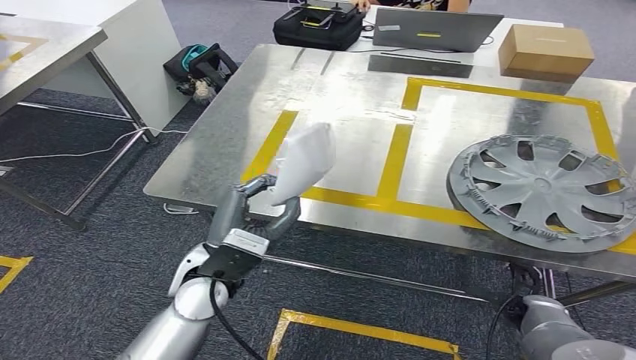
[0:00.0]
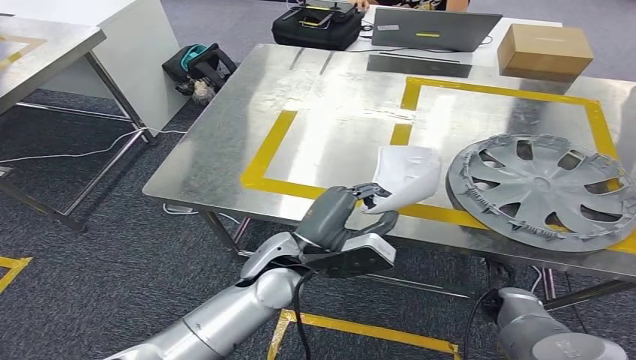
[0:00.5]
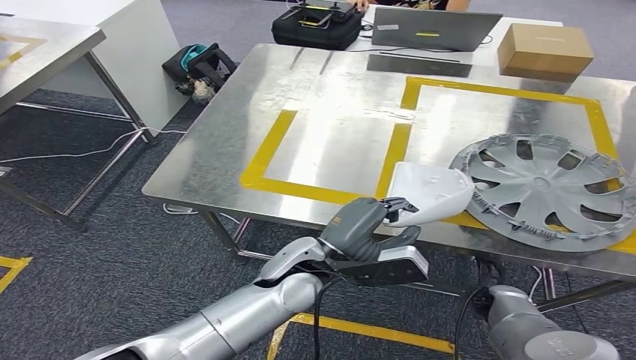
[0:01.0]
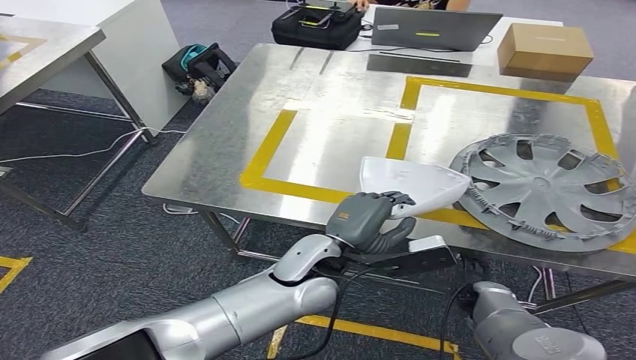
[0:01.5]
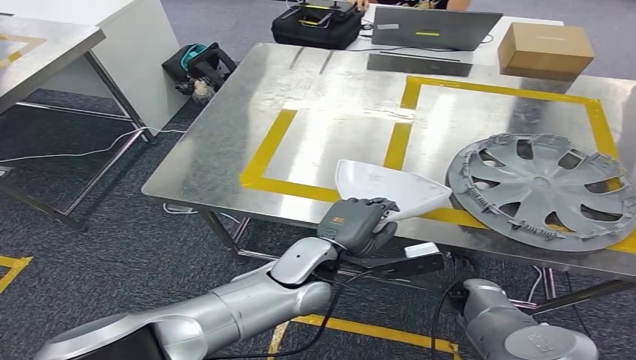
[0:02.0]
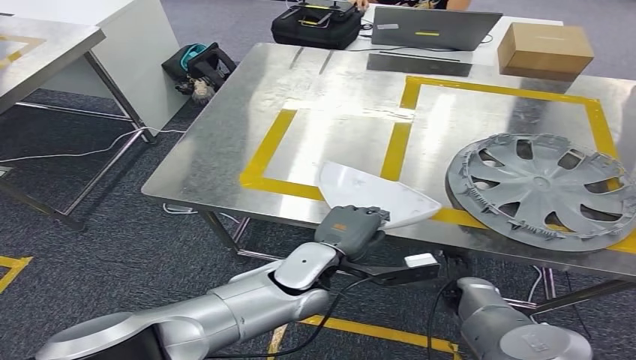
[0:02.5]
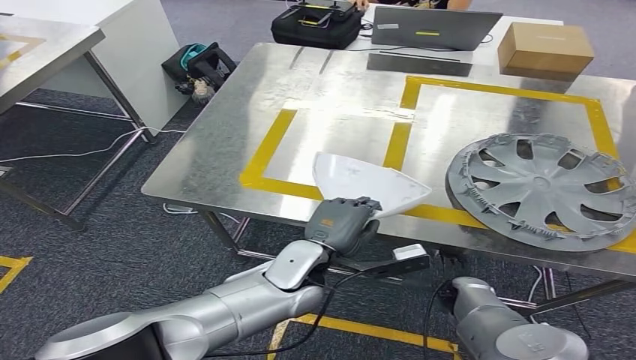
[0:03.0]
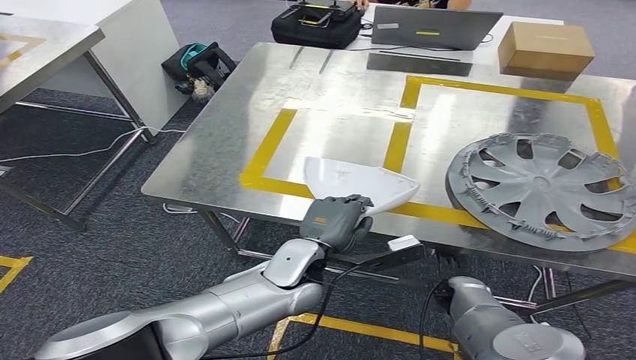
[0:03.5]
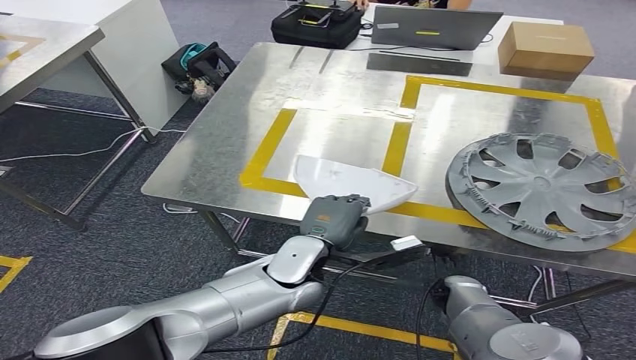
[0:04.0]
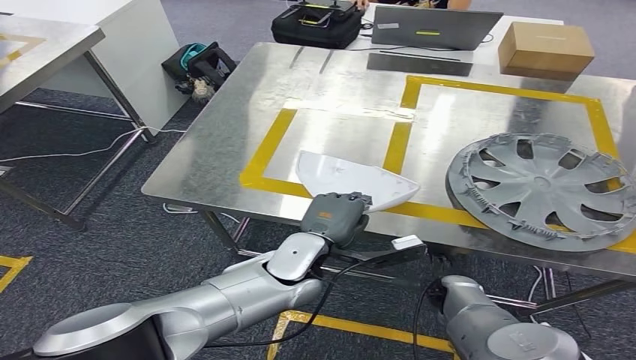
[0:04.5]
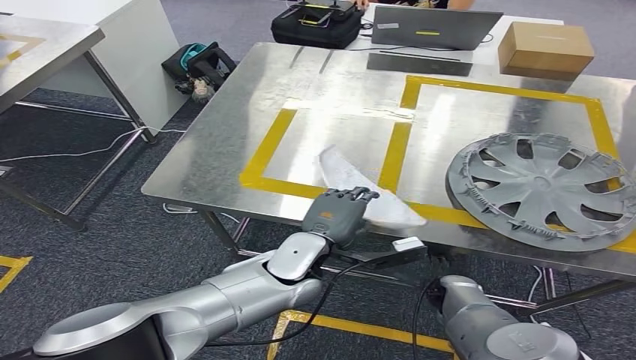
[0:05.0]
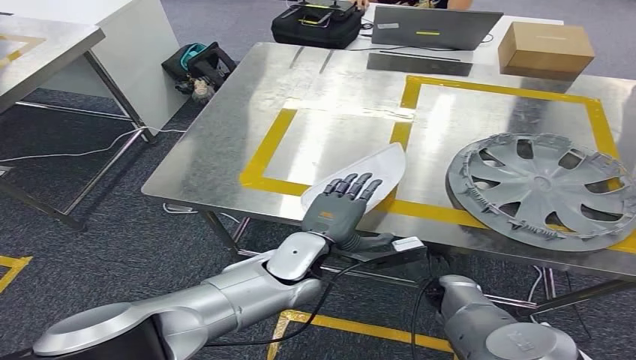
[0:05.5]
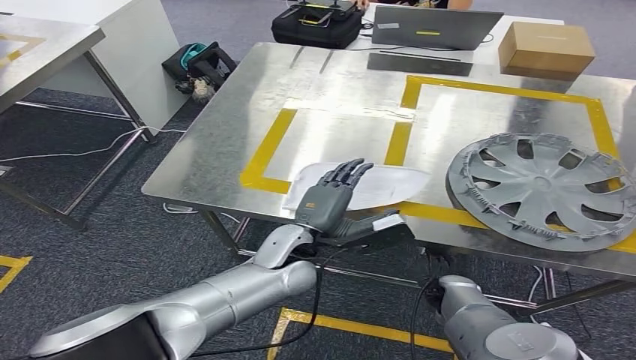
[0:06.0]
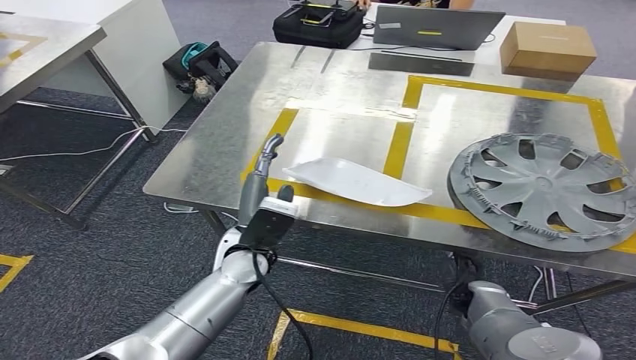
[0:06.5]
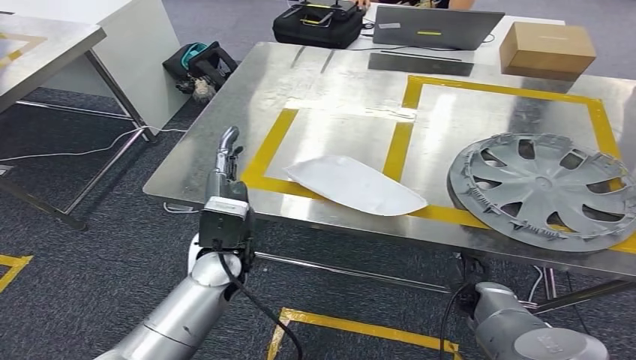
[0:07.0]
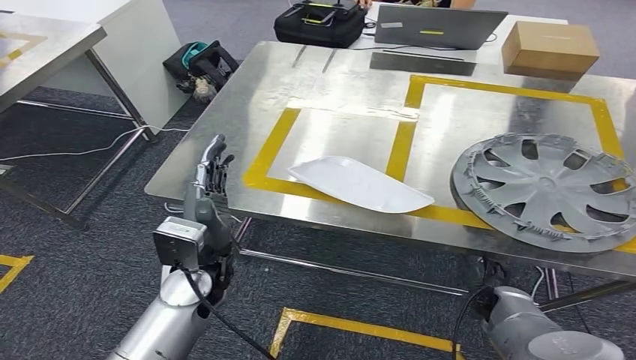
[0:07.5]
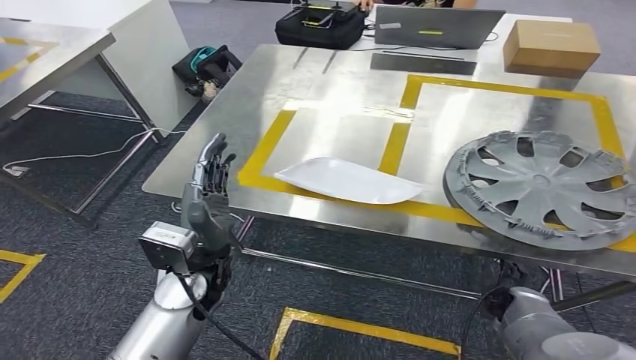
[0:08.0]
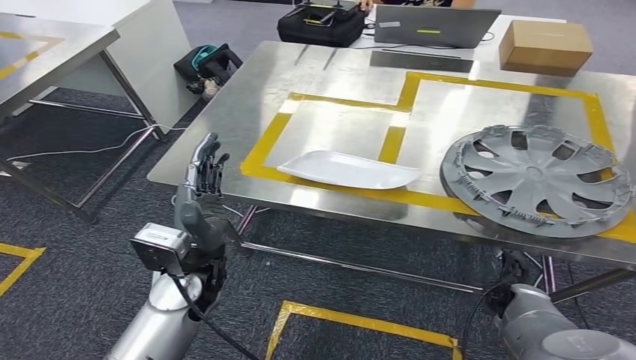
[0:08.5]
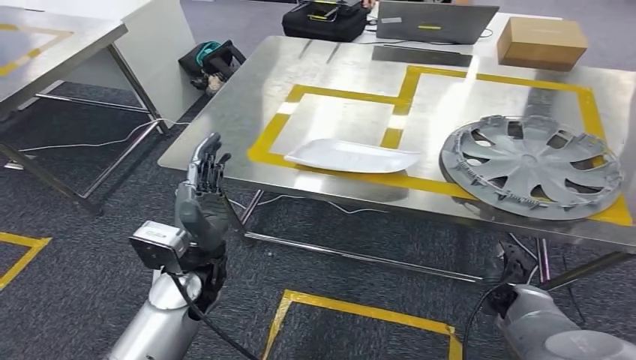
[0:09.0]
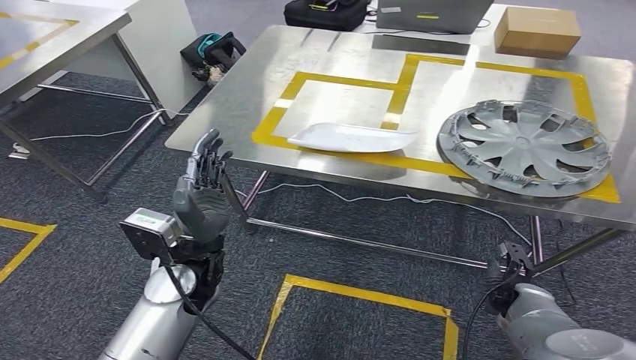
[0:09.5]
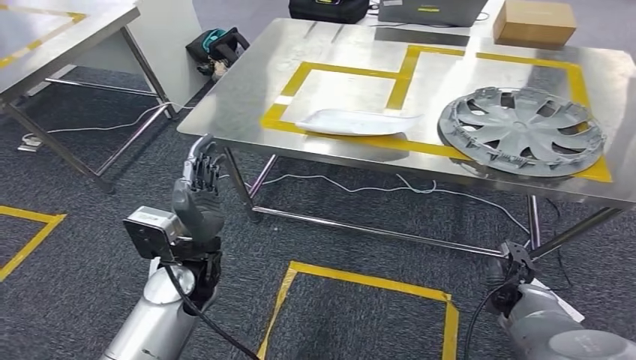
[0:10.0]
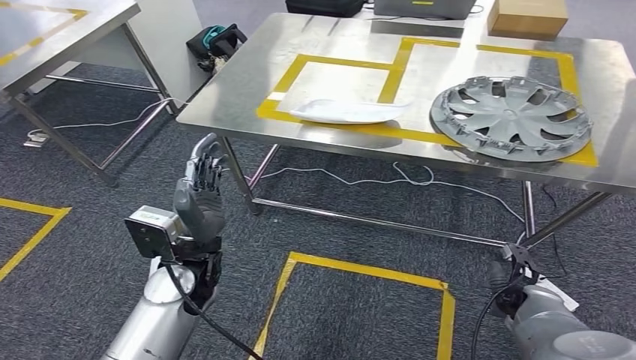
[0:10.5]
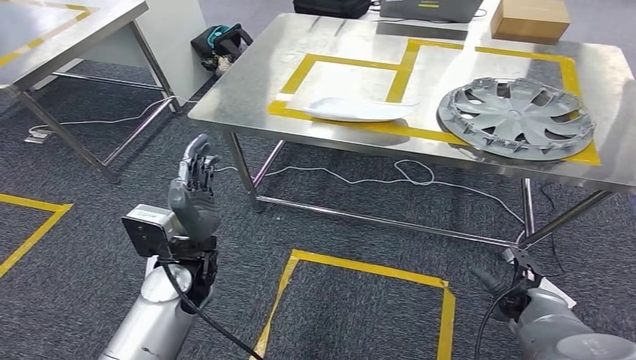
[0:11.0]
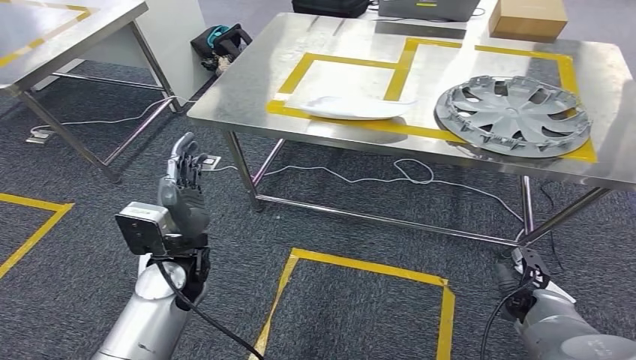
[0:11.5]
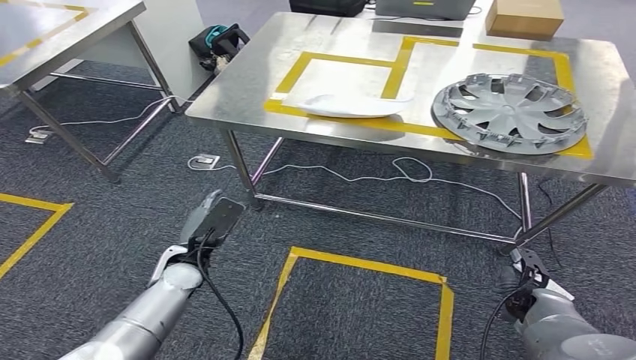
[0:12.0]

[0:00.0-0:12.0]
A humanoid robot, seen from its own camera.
Step, 0:00.0 to 0:09.0: Insert the small component into the corresponding slot on the workbench.
0:02.0 to 0:04.0: The hands move only a little.

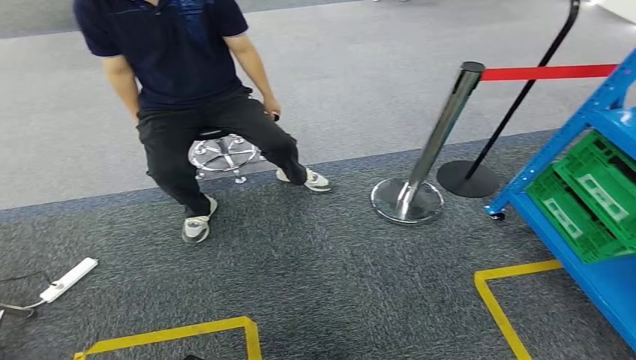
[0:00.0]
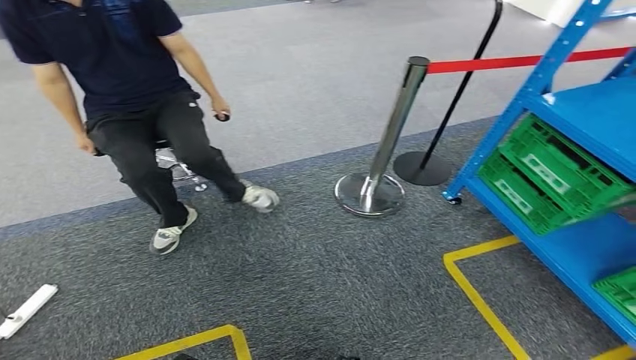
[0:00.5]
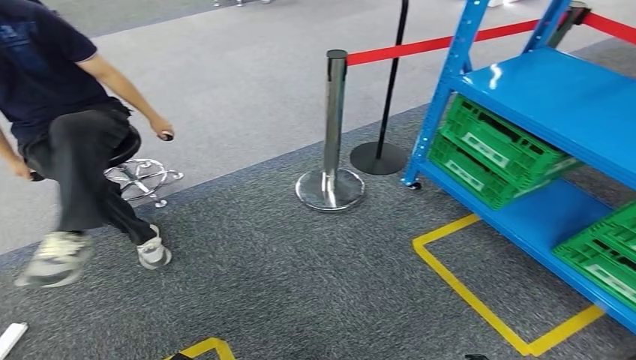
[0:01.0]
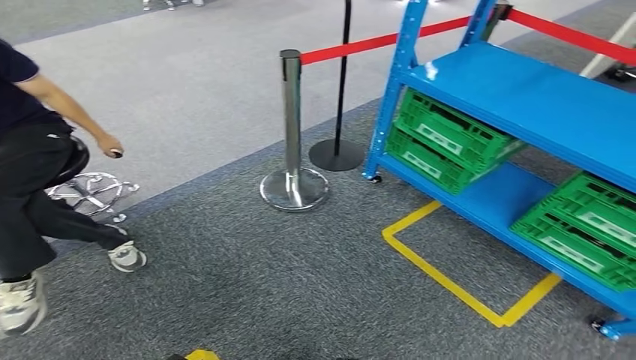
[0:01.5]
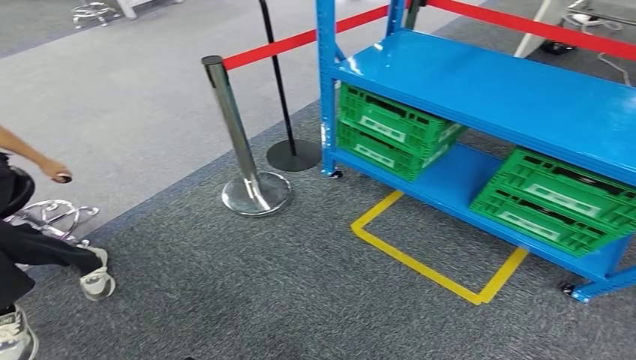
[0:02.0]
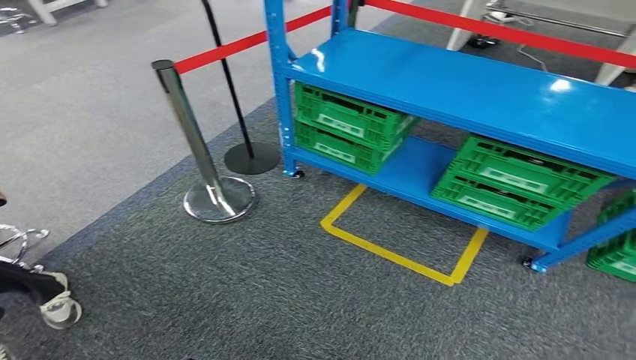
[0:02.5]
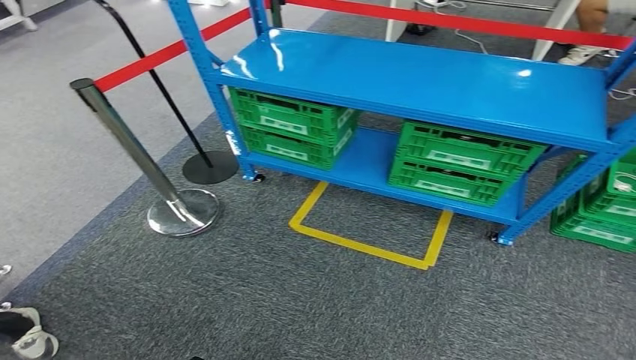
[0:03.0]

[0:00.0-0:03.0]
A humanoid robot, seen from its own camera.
Step, 0:00.0 to 0:03.0: Return to the initial position at the workbench.
